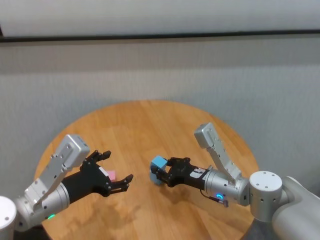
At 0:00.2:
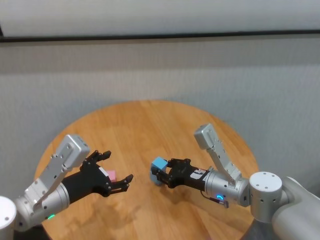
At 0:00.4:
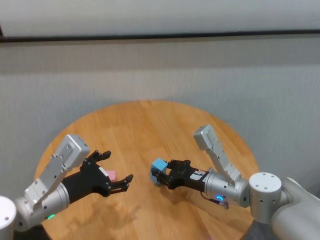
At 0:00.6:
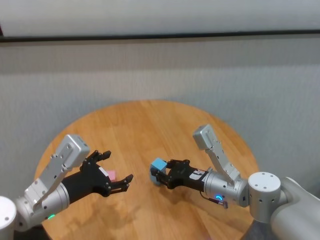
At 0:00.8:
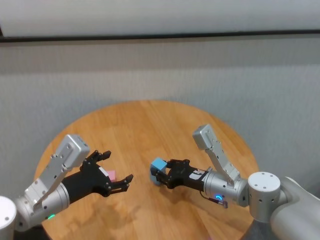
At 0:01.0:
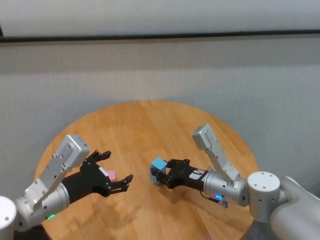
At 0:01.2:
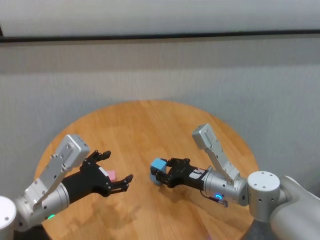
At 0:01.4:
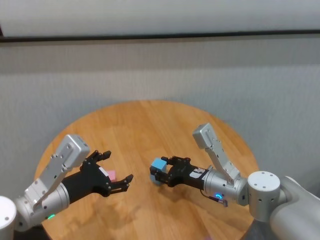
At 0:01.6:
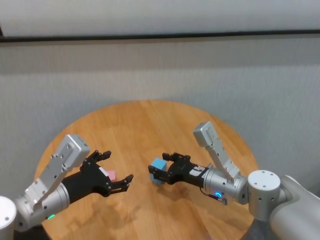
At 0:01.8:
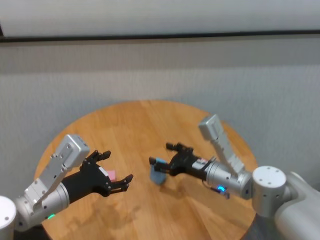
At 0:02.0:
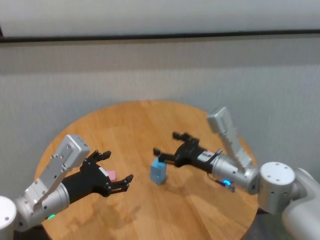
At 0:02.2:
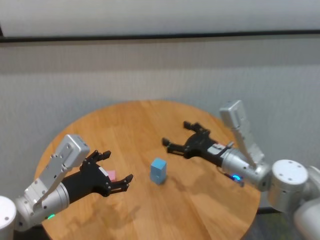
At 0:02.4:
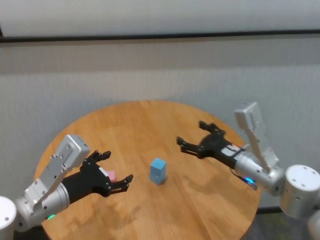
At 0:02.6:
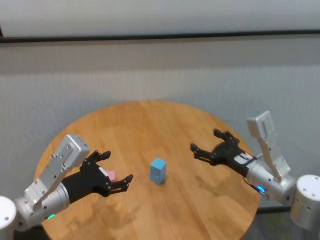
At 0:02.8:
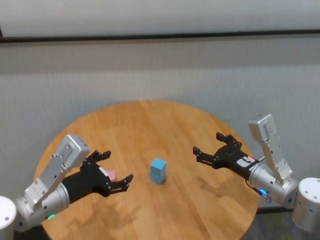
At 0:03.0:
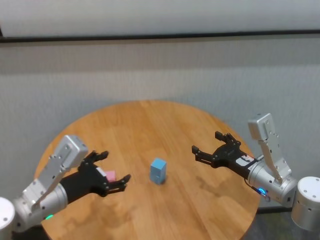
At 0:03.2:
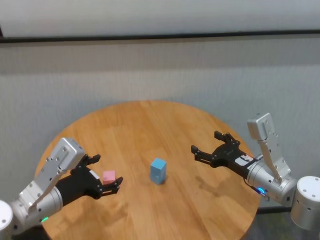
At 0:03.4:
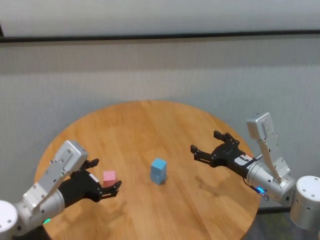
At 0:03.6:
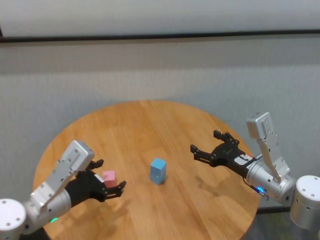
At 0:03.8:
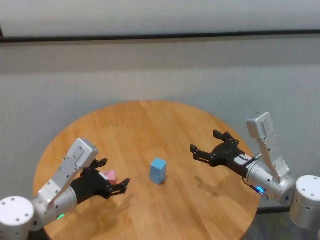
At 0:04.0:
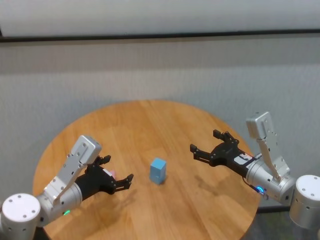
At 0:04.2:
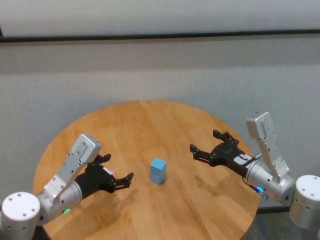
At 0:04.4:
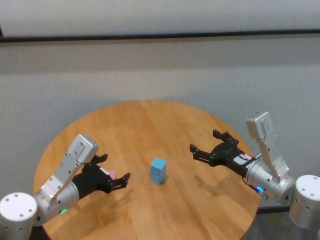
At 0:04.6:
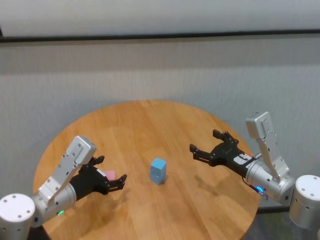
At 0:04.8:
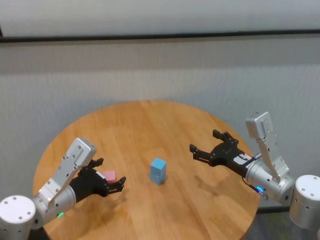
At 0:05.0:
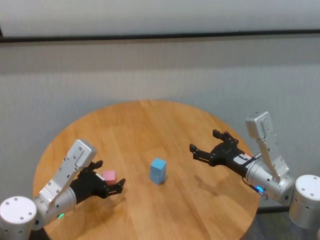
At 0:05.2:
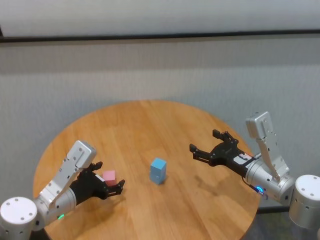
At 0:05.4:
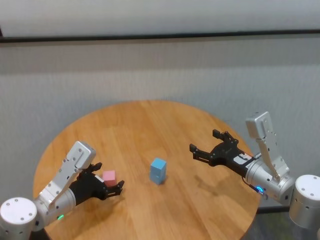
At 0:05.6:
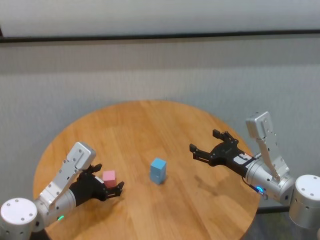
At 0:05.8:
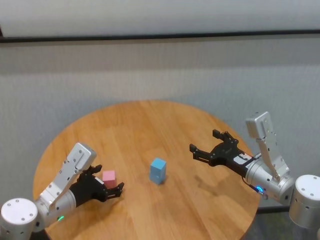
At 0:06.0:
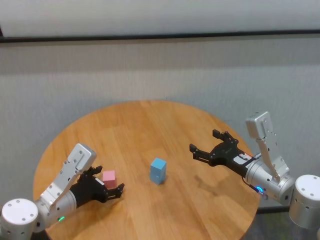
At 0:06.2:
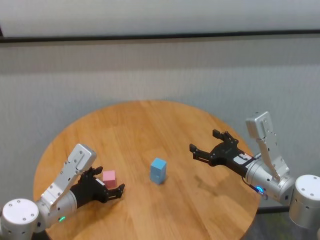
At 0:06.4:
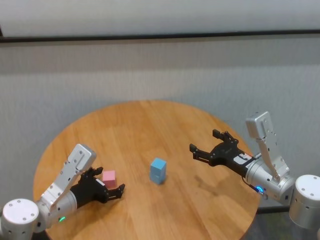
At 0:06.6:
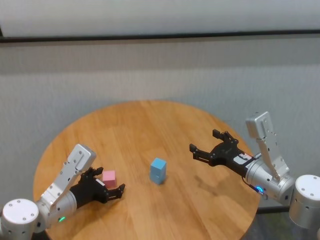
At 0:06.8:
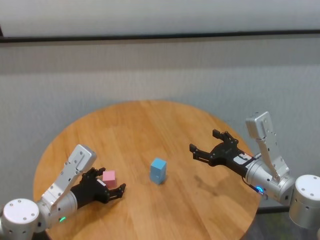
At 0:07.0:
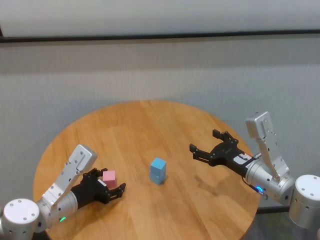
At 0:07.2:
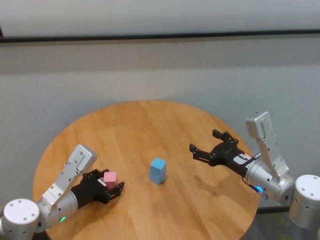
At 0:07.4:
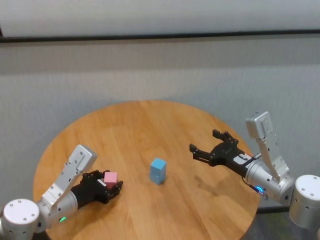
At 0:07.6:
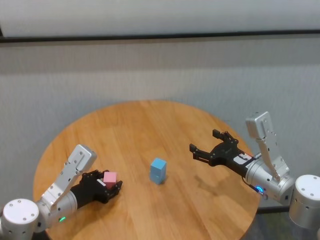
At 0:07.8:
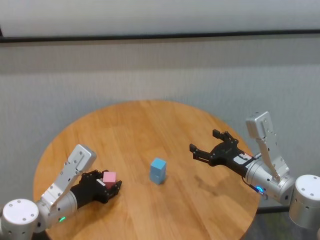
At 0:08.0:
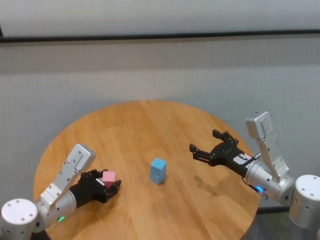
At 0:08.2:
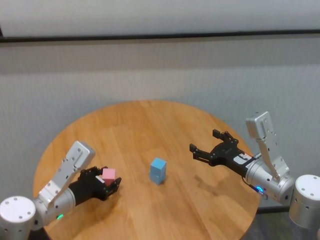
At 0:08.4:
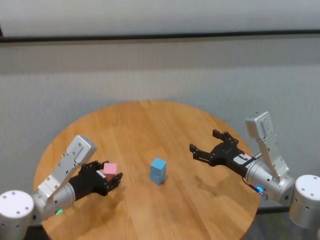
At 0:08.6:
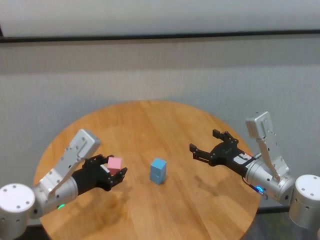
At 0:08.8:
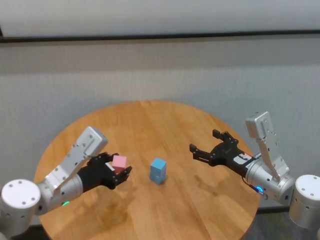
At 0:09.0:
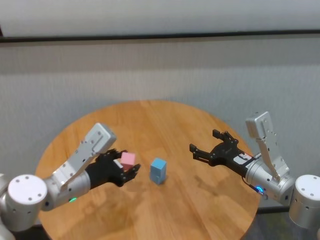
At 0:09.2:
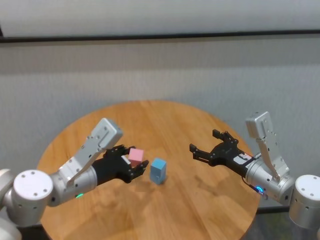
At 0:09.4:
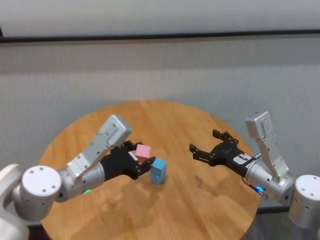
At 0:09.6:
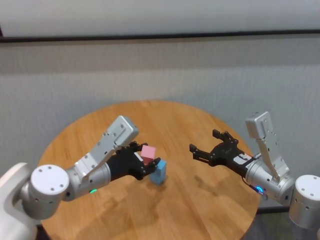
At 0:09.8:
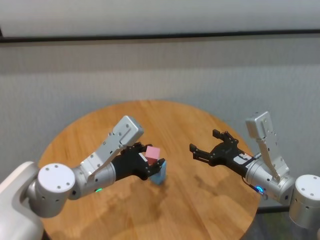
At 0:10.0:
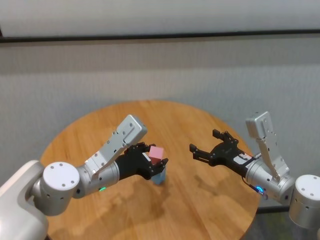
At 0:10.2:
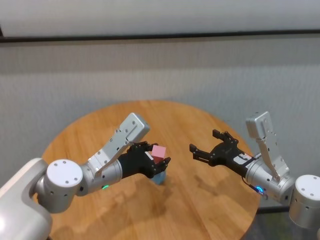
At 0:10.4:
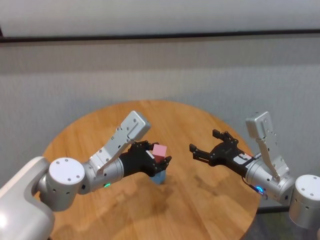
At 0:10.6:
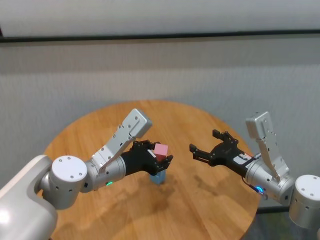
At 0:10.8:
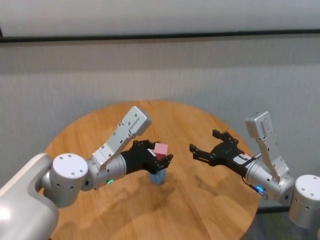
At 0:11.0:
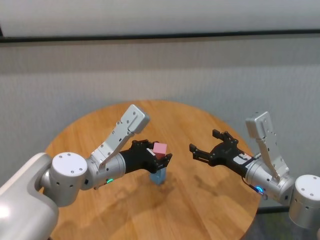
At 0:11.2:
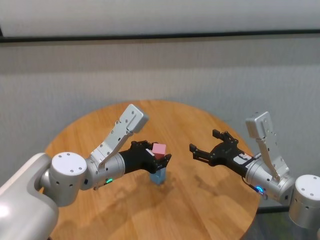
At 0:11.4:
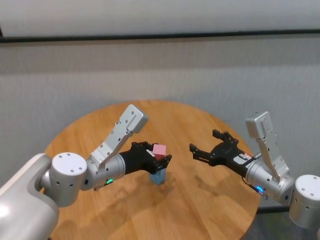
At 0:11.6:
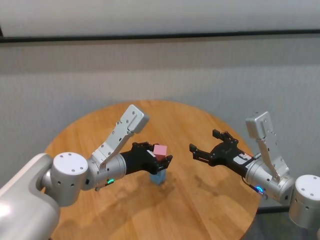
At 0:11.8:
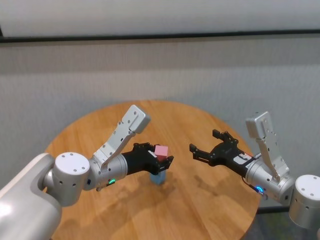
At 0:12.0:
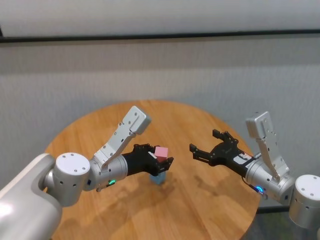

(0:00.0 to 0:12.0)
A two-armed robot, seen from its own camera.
Task of the whole recording: stack building blocks on the table.
Step, 0:01.6 - 0:07.2: Grasp the pink building block with left gripper.

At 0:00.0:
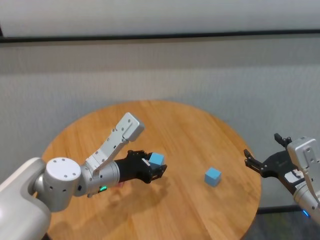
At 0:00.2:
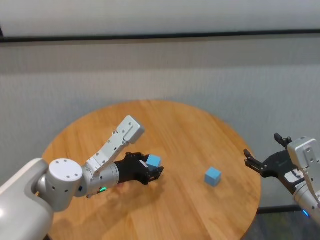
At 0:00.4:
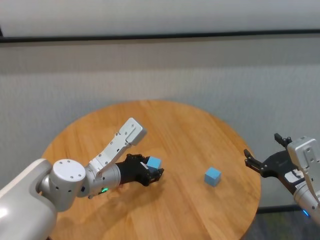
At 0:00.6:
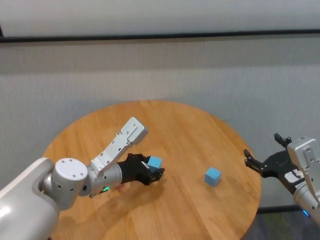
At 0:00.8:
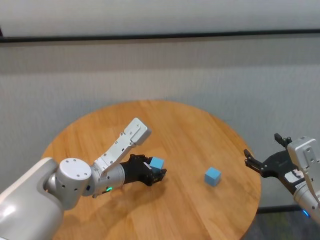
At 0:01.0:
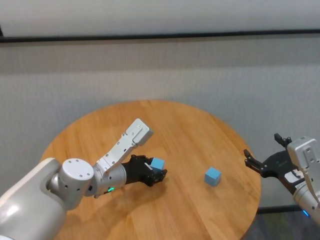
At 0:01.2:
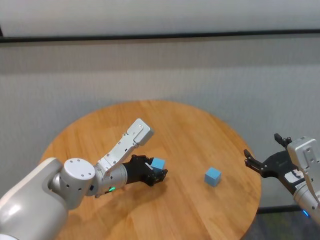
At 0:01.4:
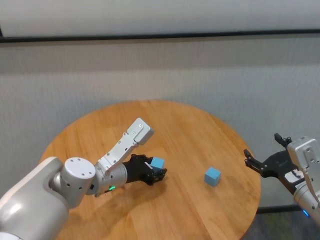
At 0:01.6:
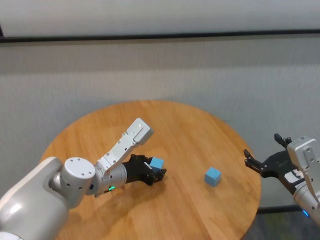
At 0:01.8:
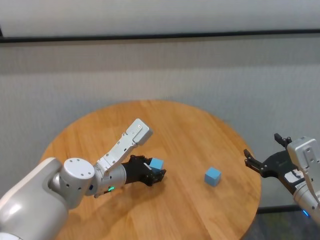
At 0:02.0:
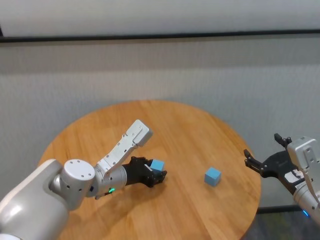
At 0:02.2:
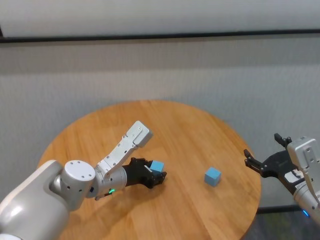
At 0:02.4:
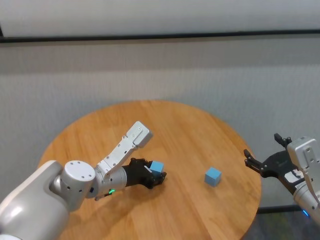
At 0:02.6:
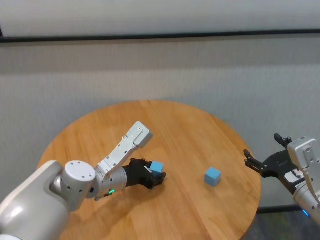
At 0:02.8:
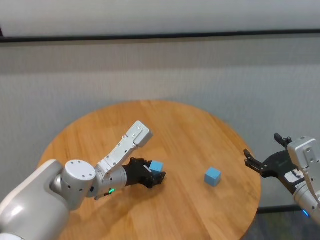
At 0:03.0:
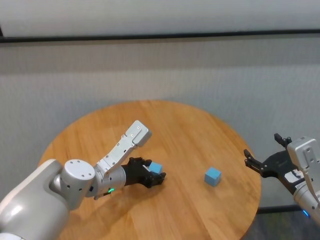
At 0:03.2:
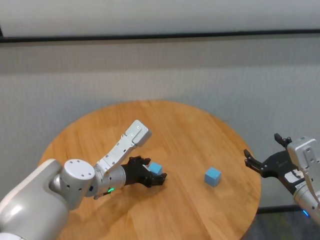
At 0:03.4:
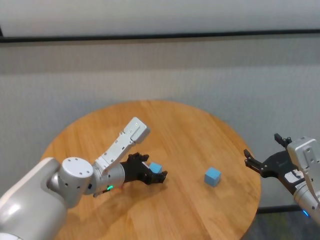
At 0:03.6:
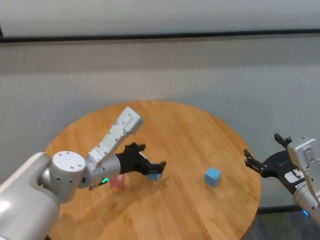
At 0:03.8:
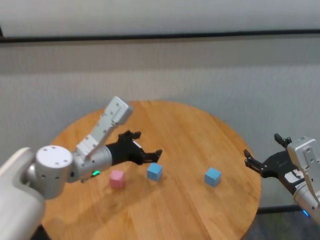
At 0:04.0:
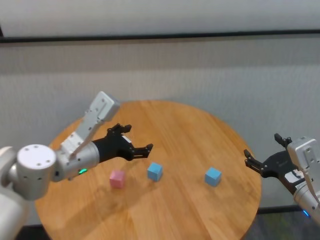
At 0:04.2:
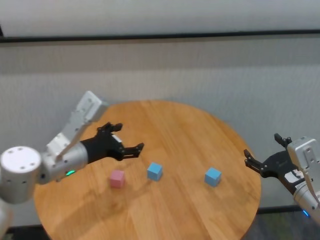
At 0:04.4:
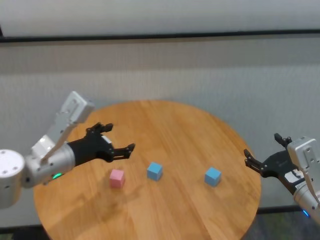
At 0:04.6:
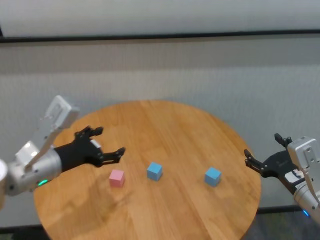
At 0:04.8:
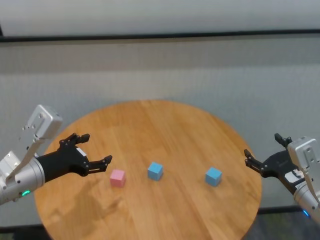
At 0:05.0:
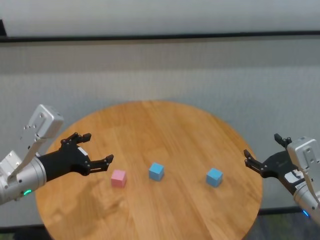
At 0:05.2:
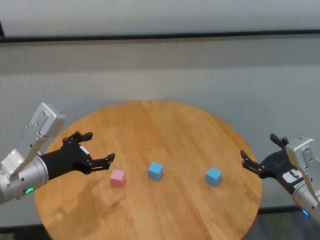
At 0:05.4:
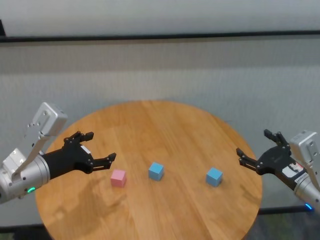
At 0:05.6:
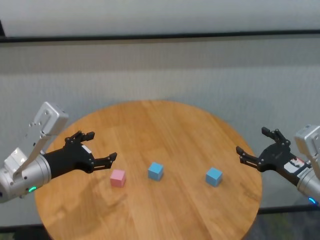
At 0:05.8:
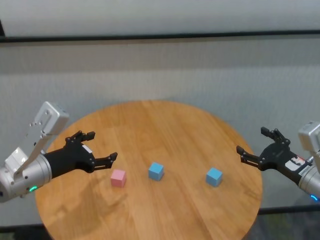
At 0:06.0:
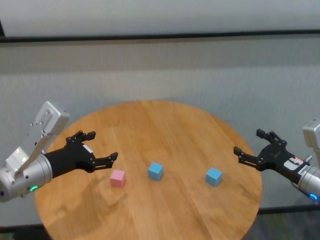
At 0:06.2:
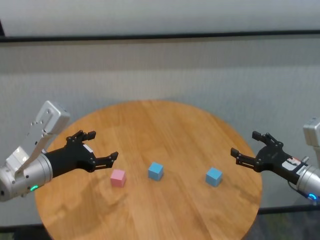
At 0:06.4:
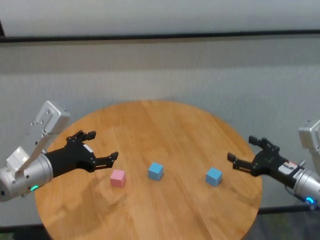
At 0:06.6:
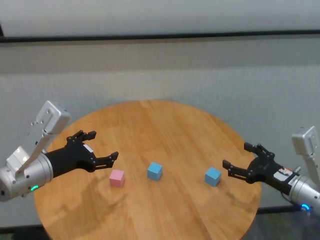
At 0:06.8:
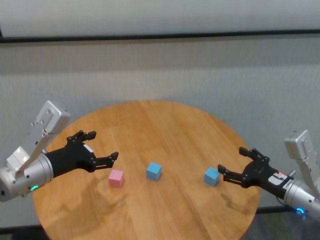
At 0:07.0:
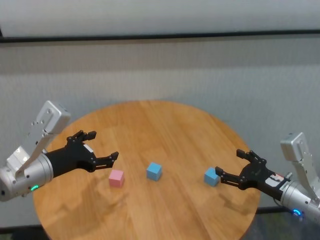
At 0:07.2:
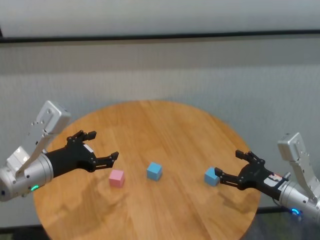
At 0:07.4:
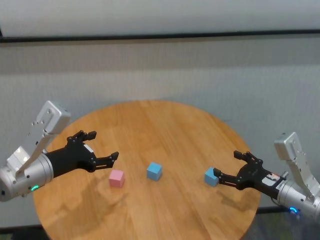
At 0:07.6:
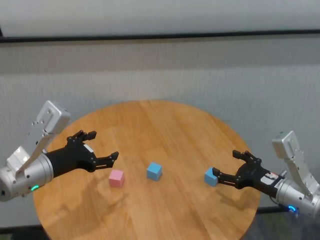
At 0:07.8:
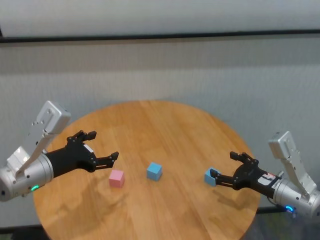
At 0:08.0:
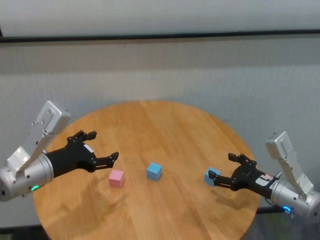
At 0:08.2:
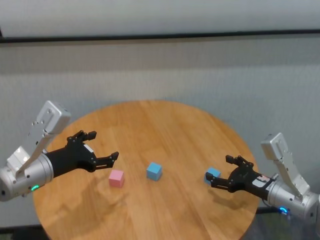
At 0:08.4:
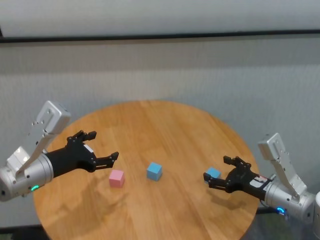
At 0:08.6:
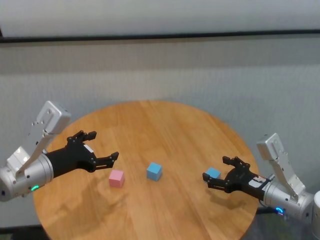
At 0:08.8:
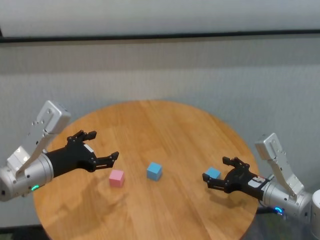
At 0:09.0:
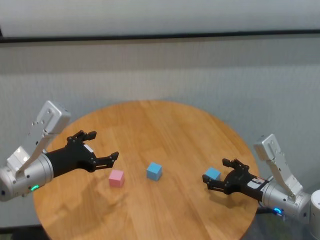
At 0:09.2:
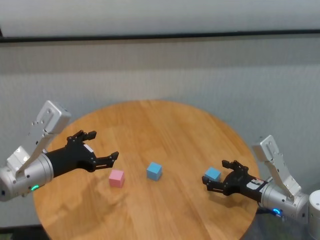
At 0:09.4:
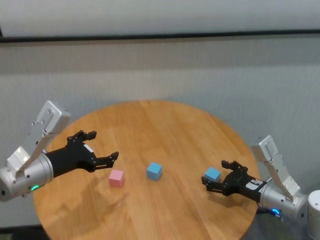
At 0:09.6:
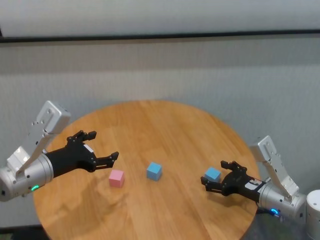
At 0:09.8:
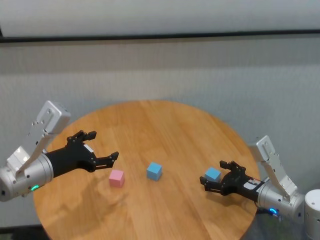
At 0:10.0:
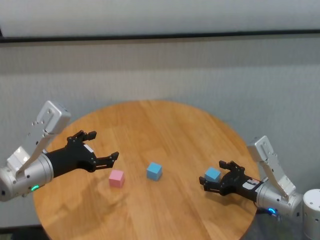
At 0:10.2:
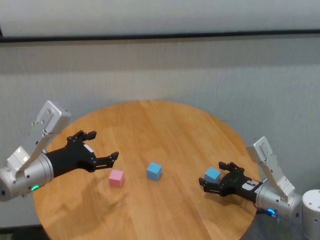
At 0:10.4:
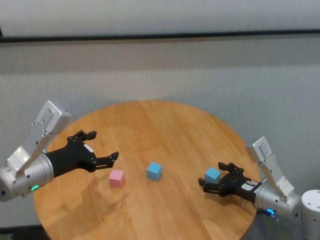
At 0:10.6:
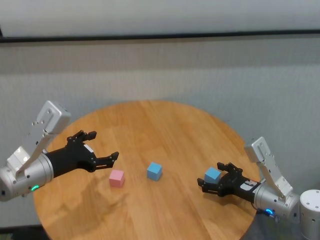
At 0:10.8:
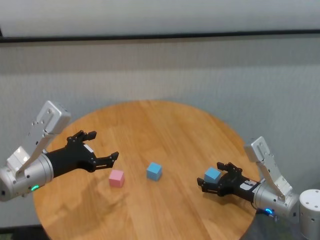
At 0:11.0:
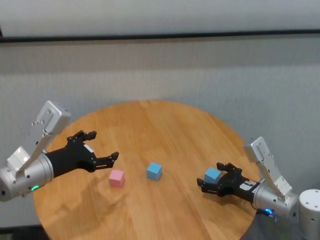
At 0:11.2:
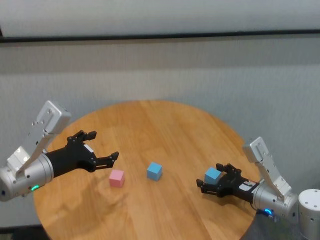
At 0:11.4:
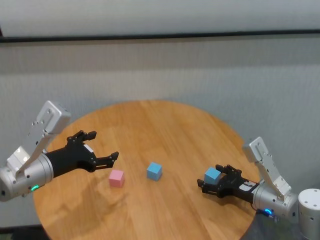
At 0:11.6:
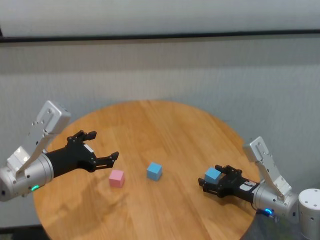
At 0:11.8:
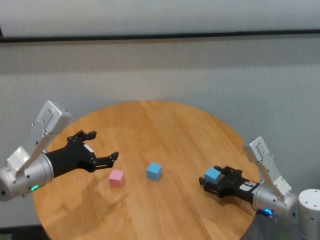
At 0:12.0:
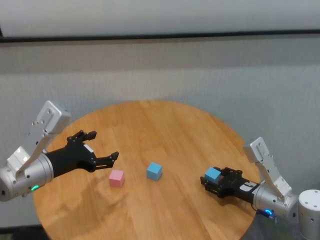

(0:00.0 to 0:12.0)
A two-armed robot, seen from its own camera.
Task of the whole recording: stack building blocks on the table.
Step, 0:00.0 - 0:03.4: Place the blue building block in the center of table with left gripper.
